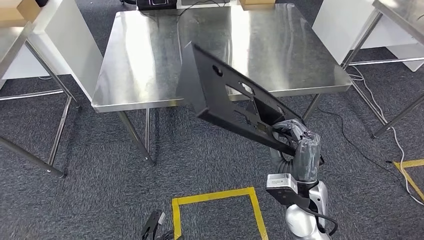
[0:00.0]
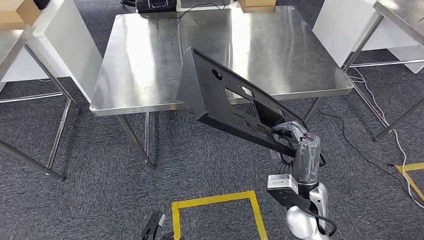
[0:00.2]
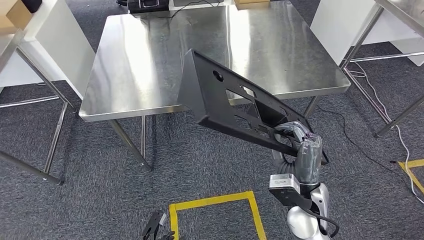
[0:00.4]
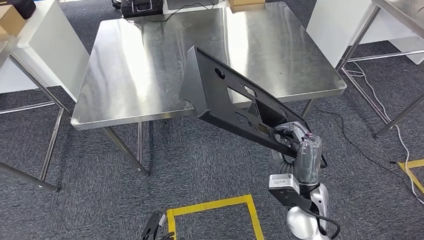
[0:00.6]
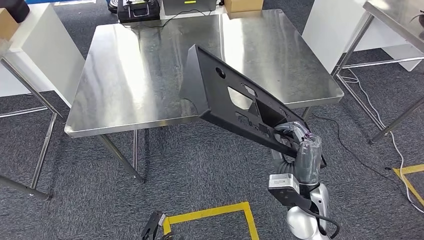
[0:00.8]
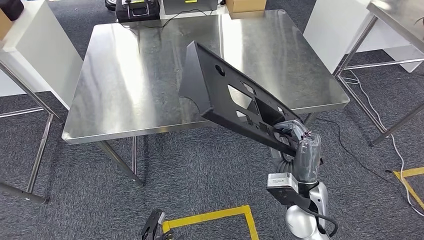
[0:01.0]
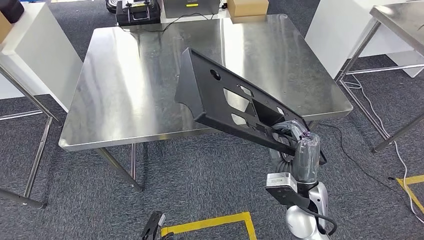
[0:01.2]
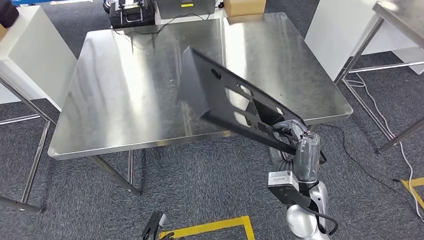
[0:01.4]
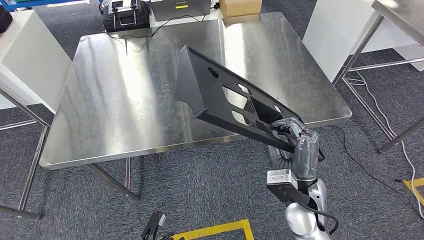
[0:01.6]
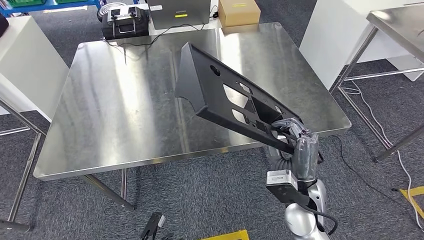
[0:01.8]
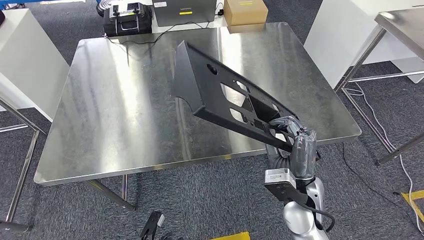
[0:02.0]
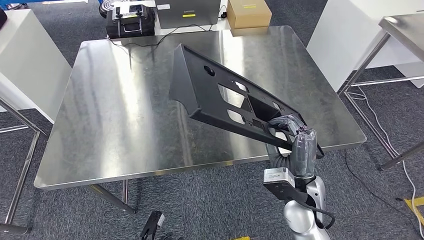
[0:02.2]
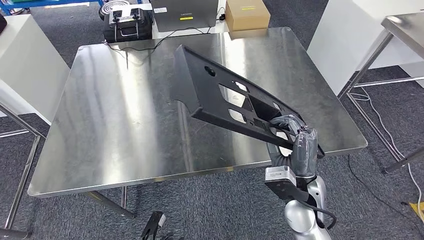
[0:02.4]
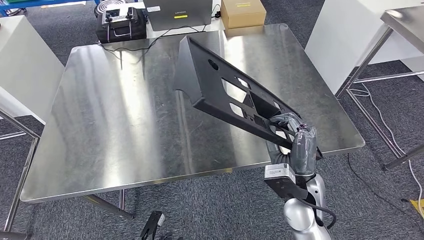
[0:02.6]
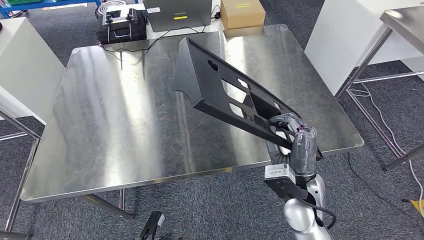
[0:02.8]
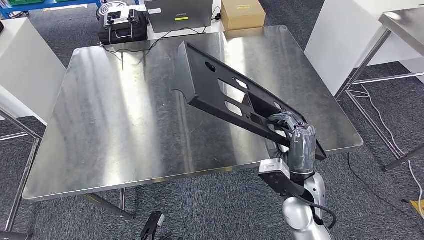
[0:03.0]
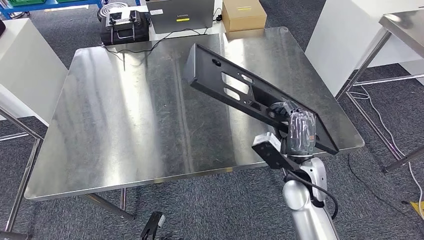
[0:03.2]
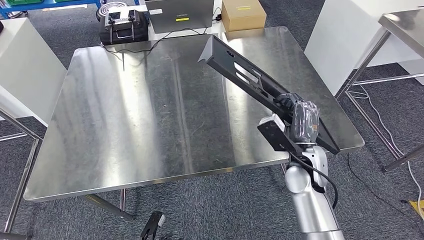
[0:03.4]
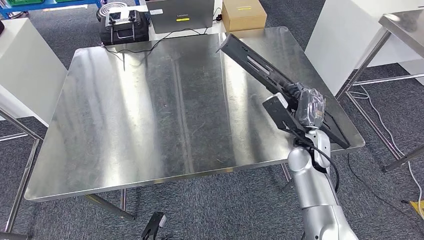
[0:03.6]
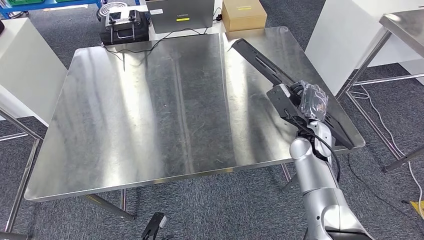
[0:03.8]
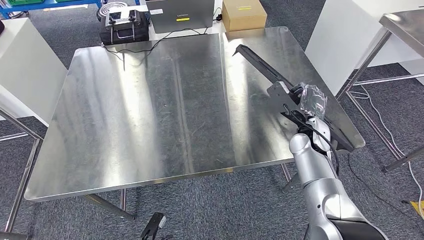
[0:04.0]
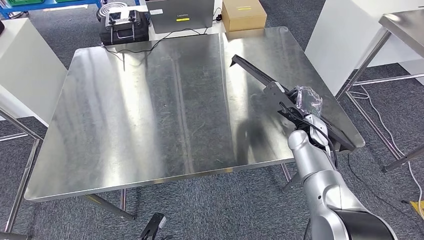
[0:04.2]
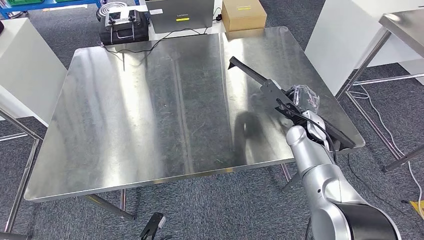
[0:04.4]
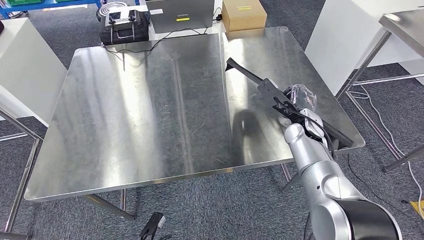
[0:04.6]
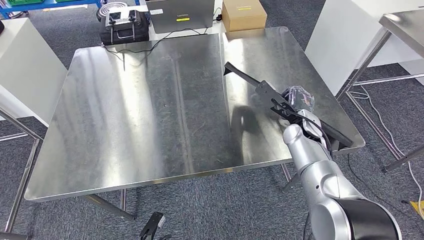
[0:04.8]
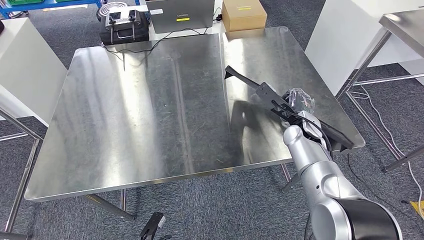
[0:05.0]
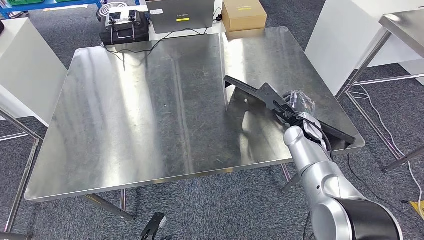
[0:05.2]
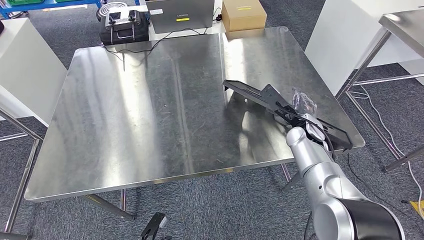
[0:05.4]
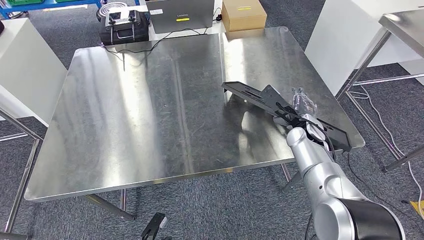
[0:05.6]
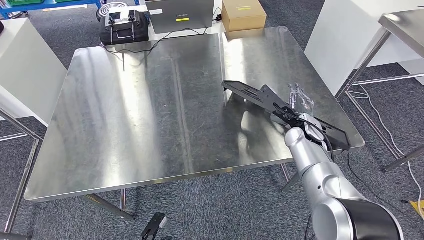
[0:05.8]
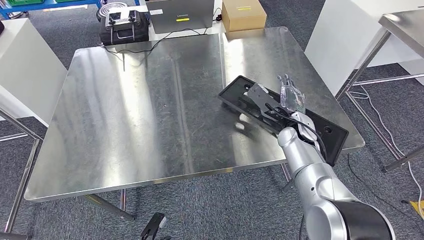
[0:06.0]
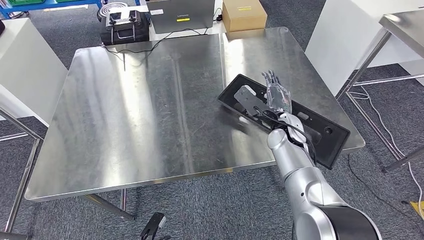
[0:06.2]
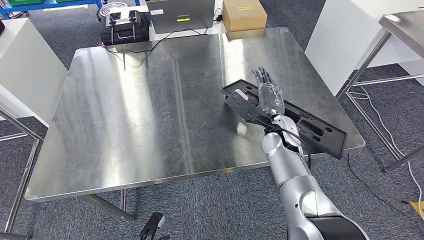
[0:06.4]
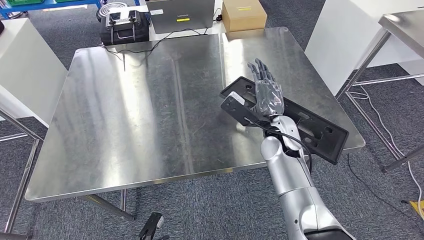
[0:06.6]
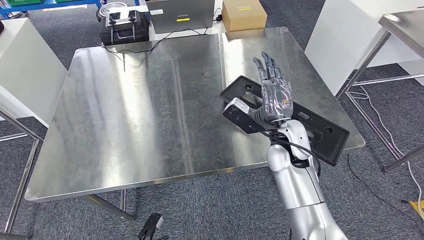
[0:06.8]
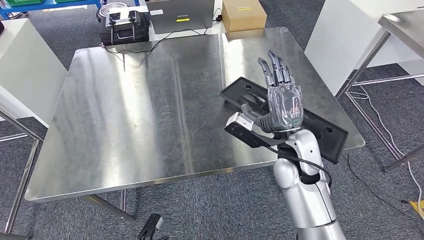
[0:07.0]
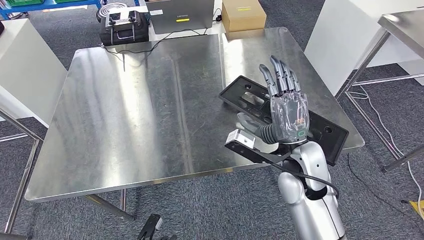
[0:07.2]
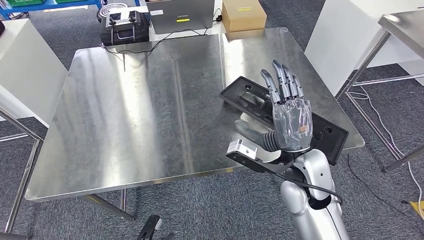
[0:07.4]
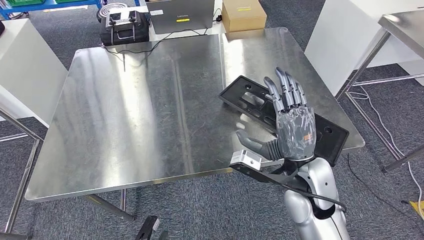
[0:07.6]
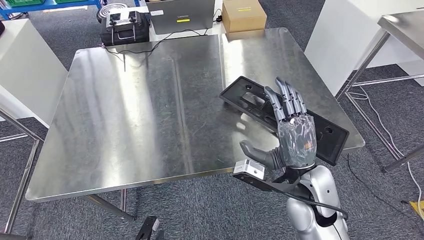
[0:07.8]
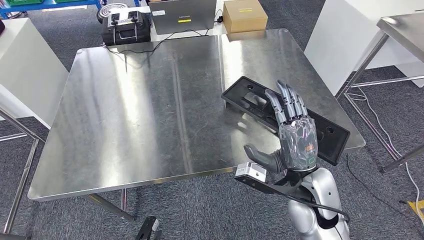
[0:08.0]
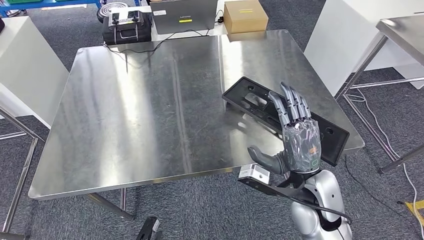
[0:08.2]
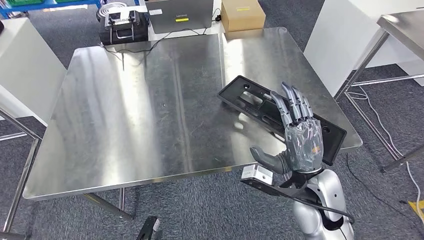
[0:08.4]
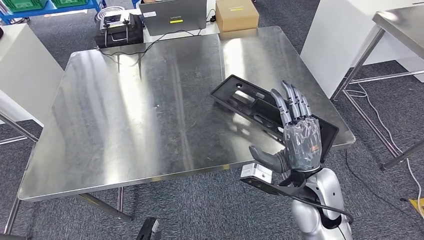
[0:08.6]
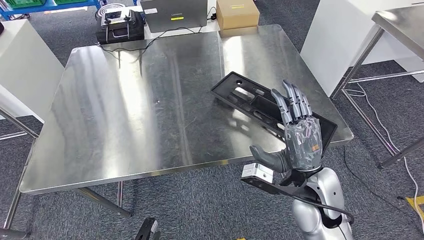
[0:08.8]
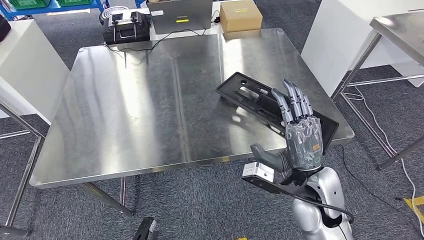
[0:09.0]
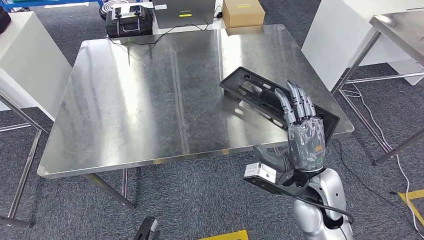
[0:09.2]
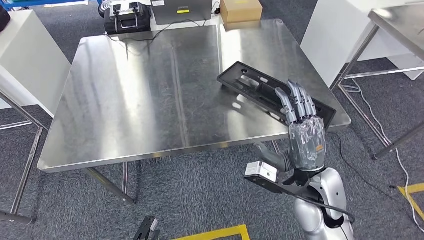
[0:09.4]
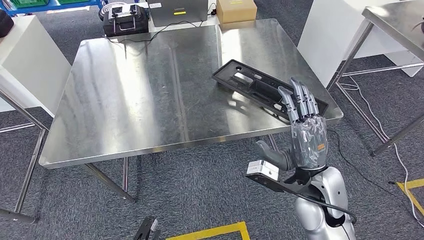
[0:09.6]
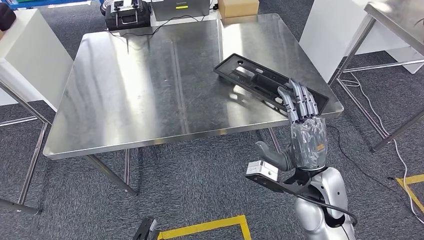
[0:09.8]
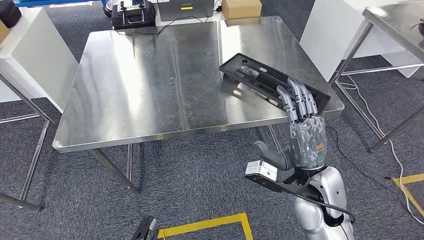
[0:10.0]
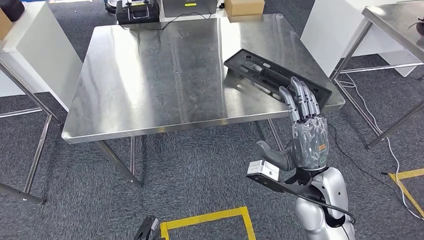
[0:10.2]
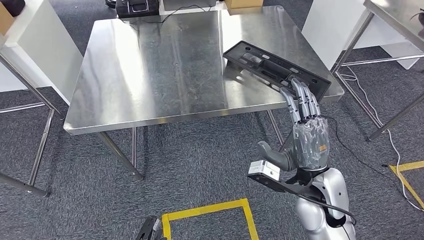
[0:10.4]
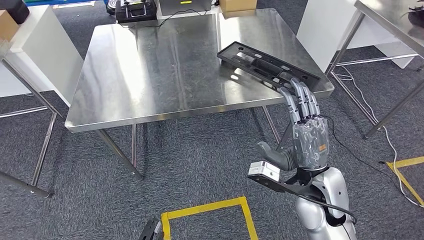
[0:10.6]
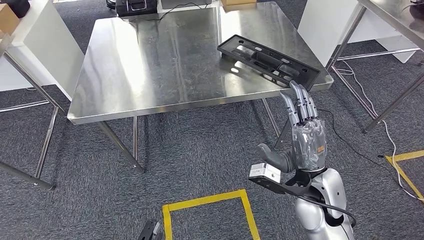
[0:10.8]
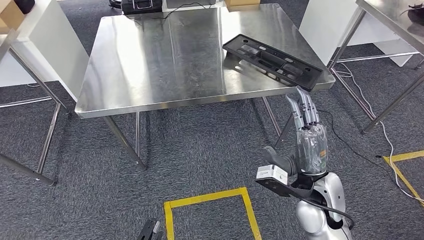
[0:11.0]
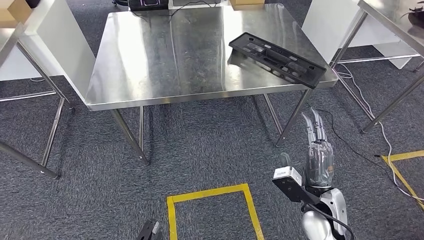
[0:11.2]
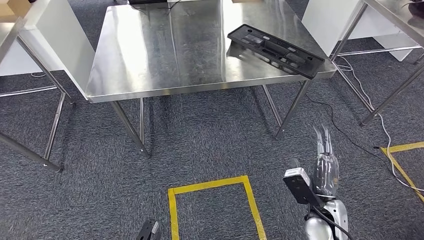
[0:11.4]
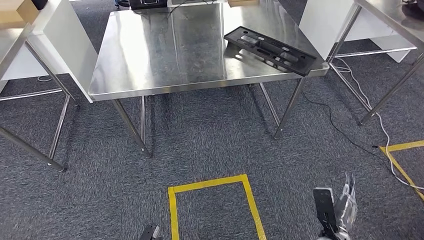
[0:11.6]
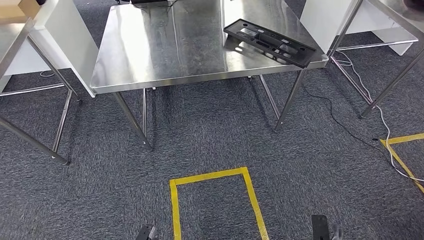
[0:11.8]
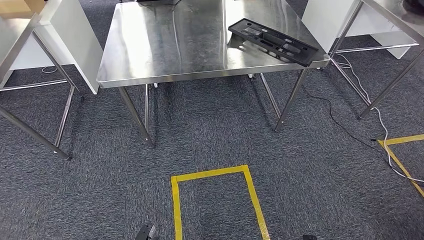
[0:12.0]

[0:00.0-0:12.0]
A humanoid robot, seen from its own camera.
Step, 0:00.0 to 0:02.0: Move the large material to the workbench.
0:04.4 to 0:06.0: The hands stay close to where they were, moving slightly.
0:06.0 to 0:07.6: The right hand moves backward and to the left, some 20 cm.

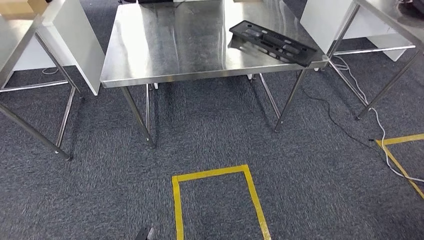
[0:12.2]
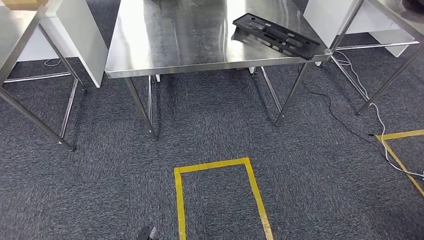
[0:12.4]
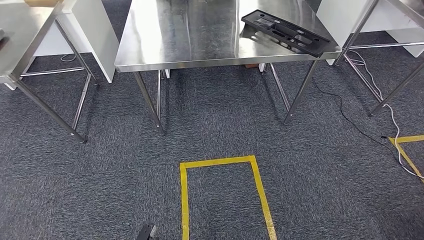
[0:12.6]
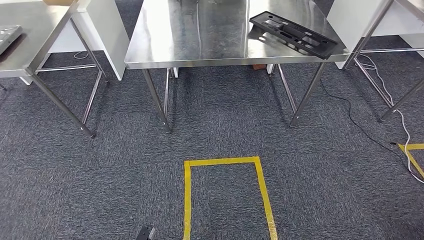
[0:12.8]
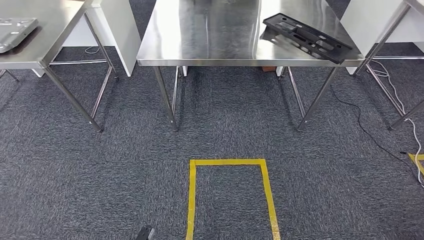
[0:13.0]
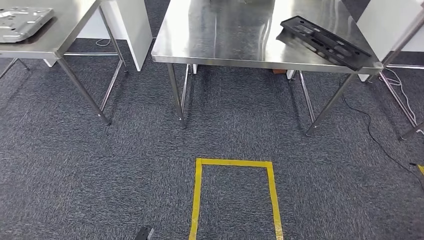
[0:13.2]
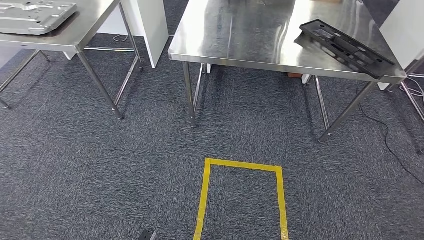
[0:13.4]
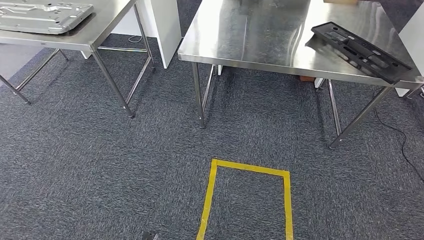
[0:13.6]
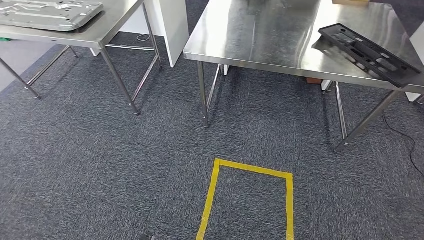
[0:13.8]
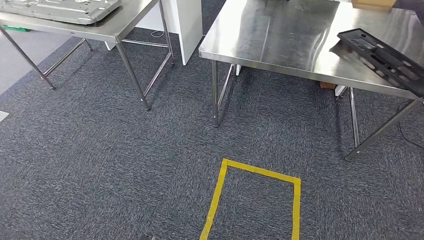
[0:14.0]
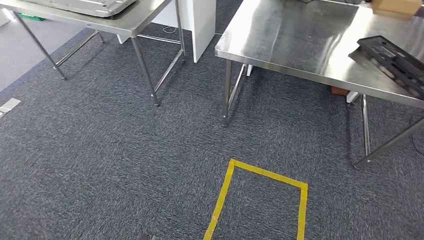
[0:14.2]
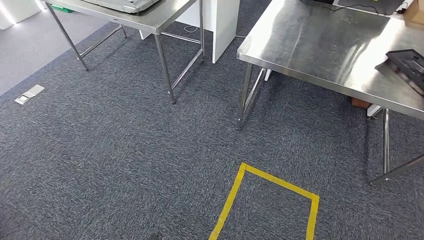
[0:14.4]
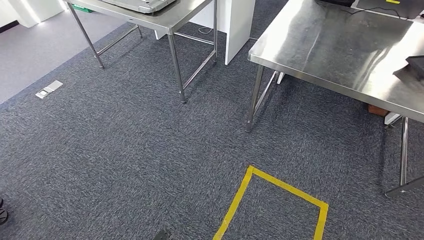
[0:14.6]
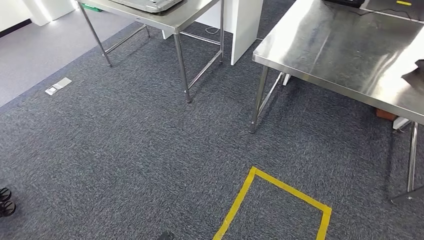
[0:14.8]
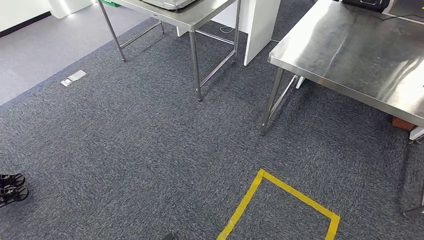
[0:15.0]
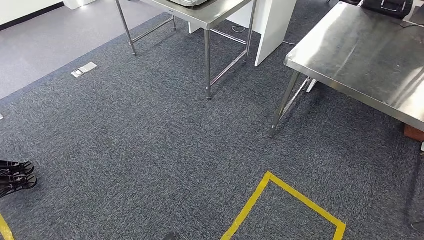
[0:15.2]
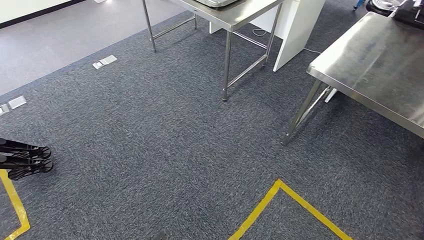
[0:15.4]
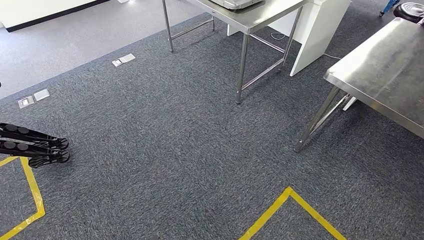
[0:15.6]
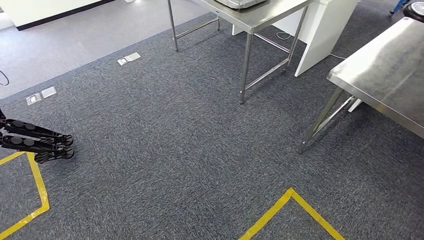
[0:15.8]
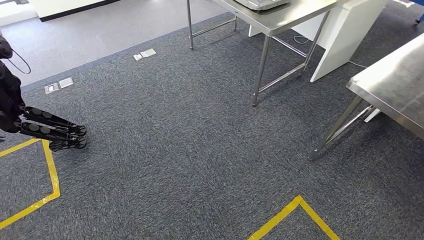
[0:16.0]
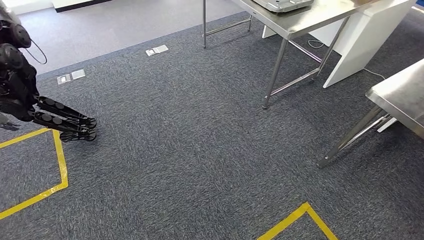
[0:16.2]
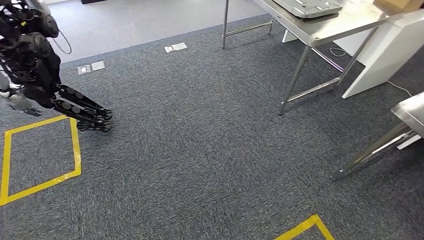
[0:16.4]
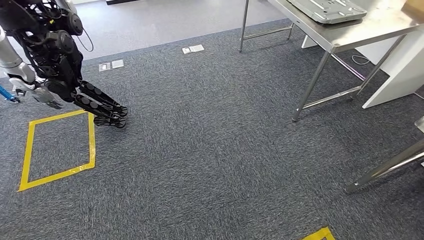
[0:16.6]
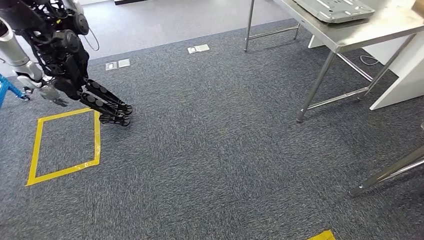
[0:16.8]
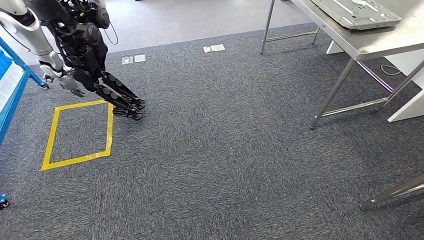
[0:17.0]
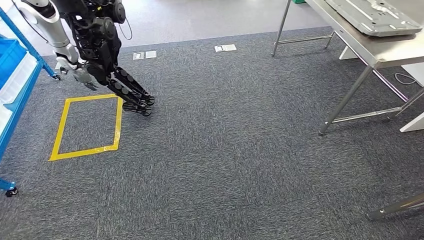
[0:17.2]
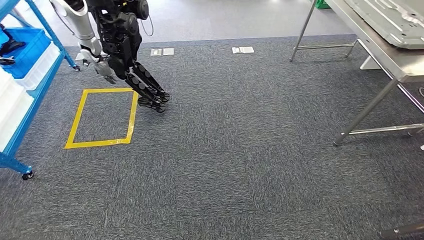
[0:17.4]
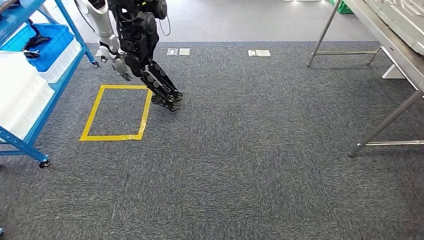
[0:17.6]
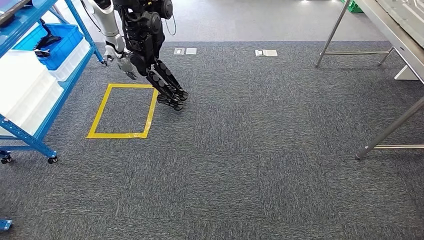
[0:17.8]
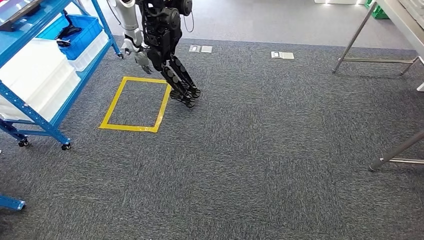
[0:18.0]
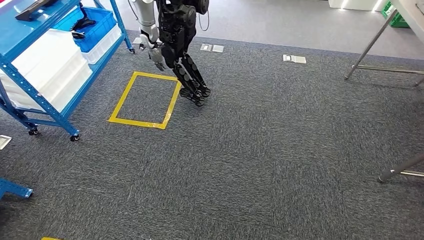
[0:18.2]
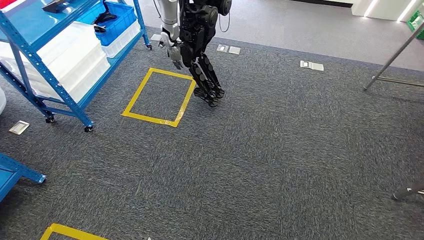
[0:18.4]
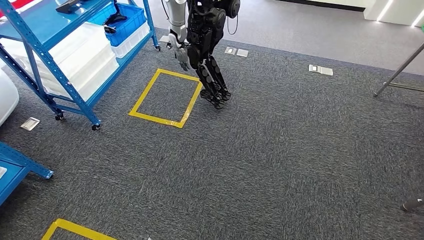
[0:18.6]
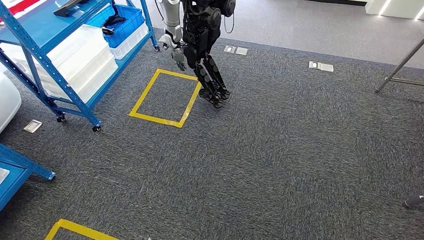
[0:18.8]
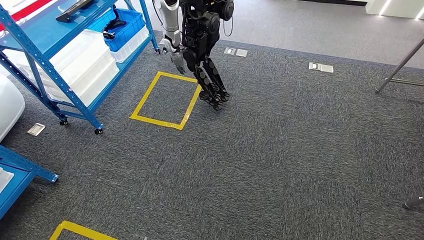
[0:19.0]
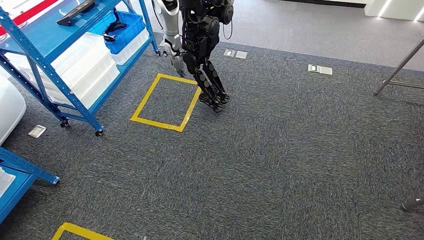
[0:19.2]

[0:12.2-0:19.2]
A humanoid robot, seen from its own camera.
Step, 0:12.2 to 0:15.2: Insert the large material into the corresponding slot on the workbench.
